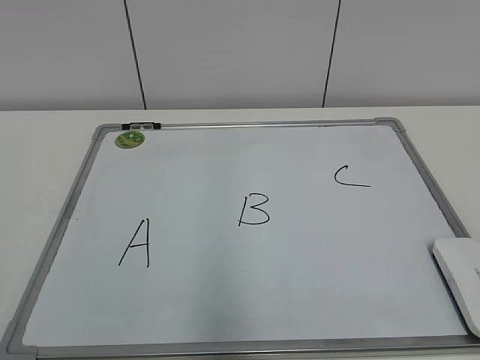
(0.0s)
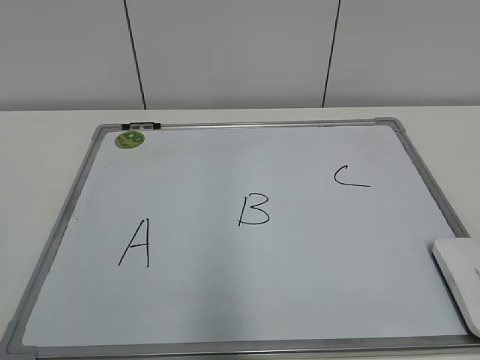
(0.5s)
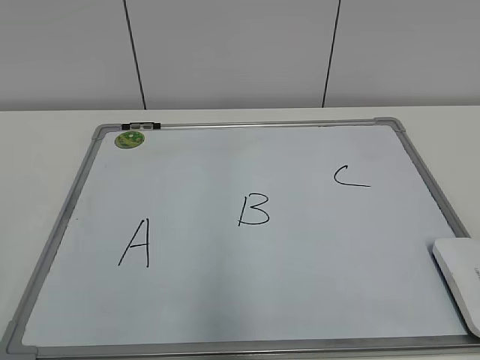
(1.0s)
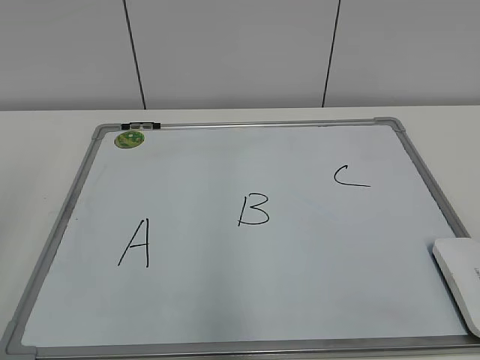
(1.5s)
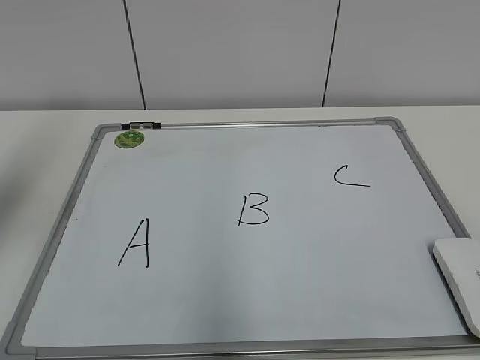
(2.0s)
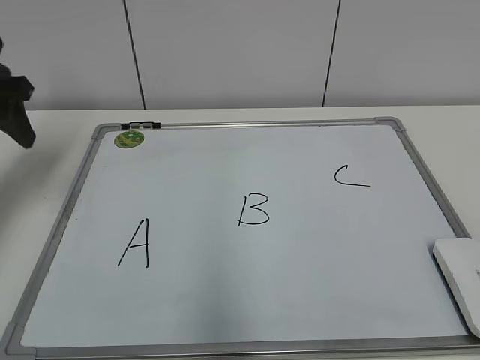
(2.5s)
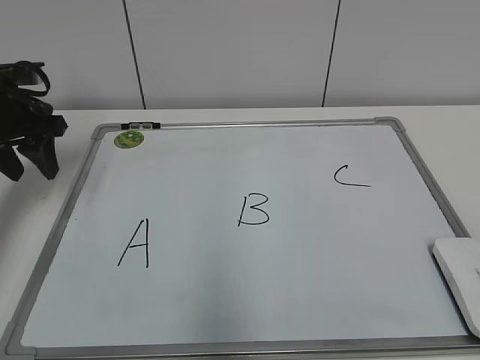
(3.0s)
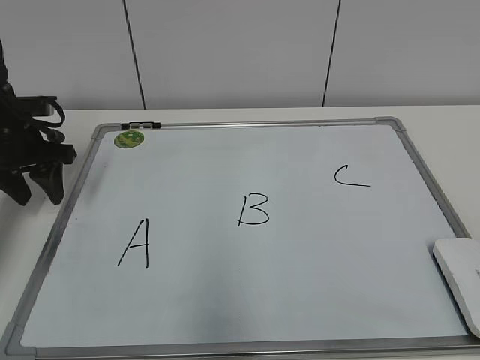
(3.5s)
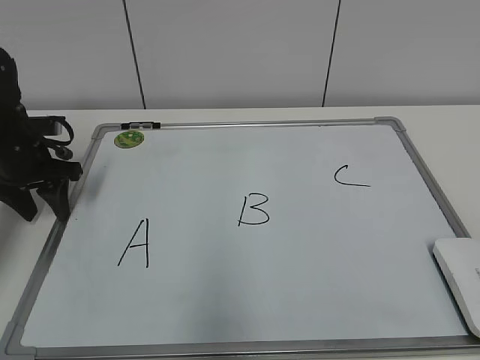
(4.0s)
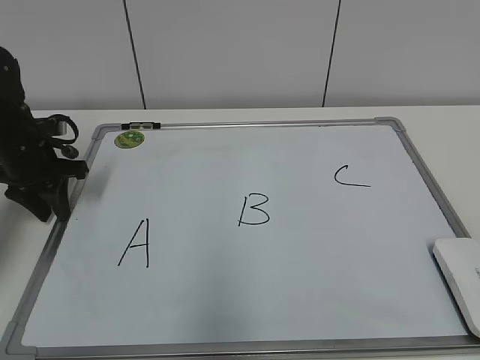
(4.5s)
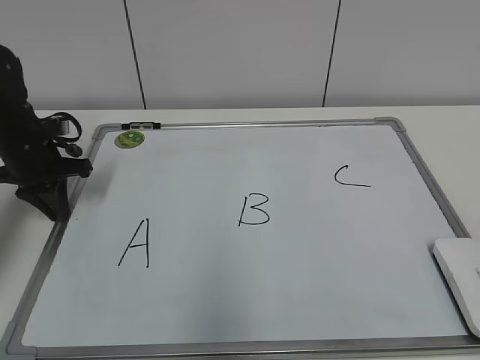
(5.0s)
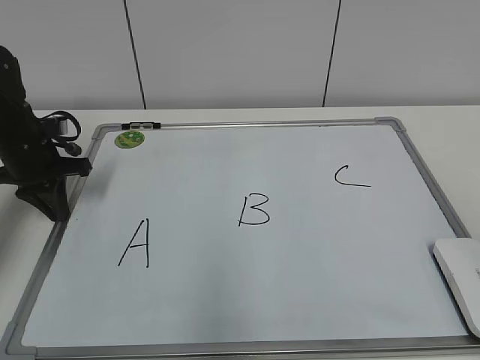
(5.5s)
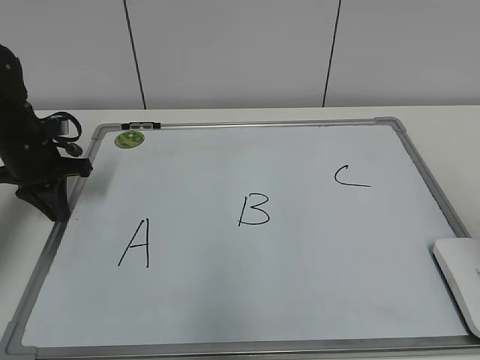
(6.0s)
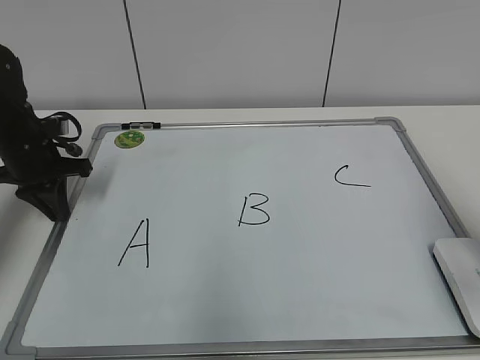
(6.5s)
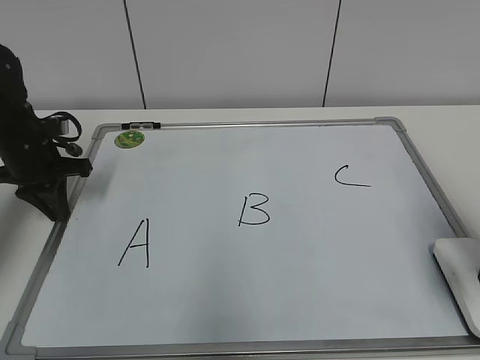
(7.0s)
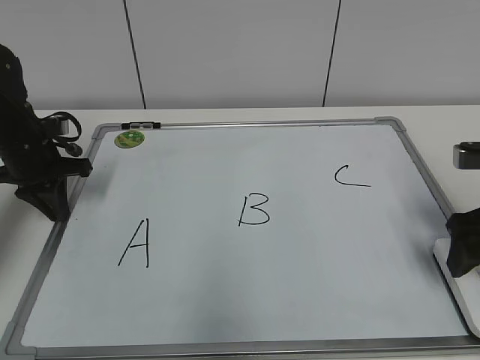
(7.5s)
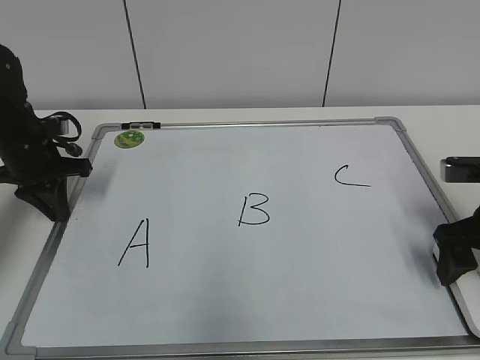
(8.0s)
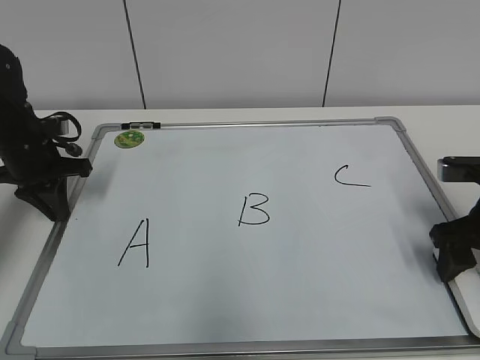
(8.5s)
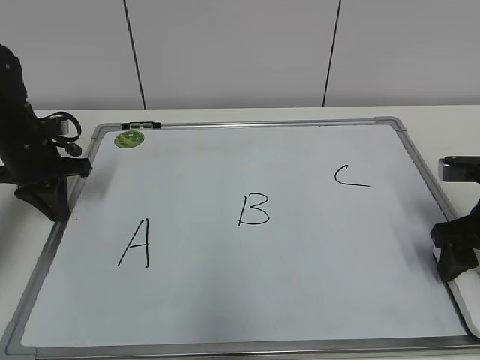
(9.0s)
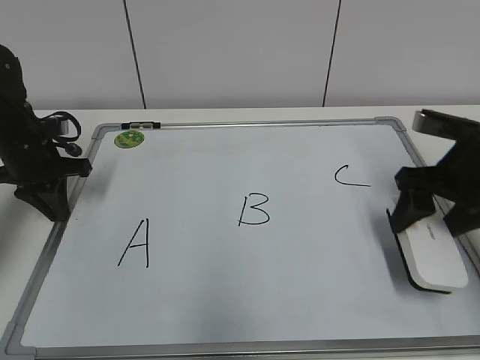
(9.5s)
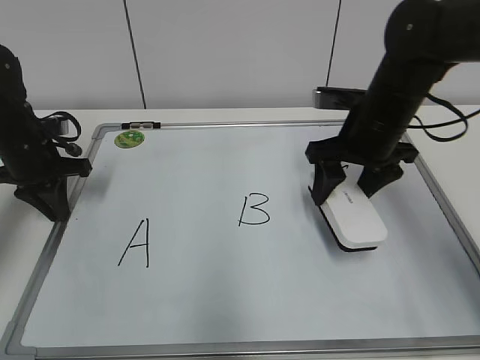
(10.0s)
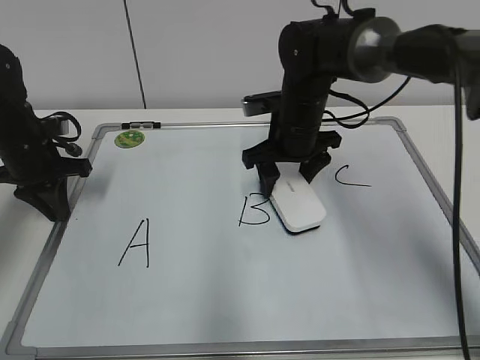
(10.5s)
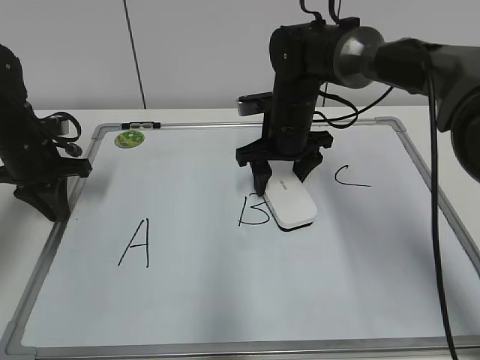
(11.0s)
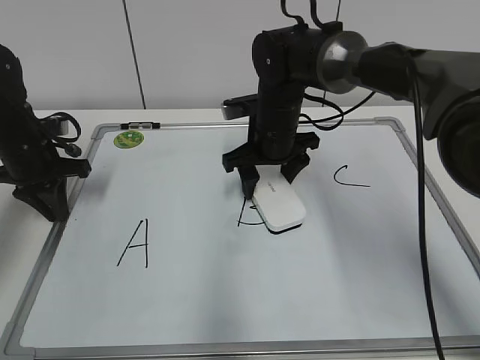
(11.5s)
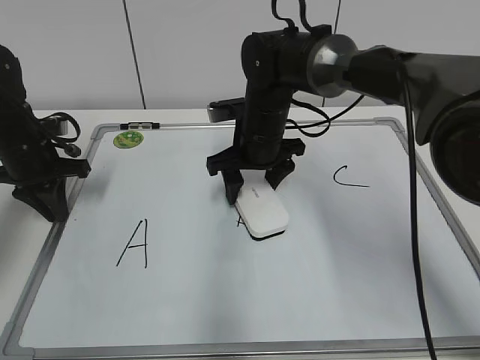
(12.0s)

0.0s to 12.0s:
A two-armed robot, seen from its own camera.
Task of the whole recording: pick up the eraser on the blackboard and erase the letter "B".
Step, 0.0s to 5.0s: Hold the drawing board steady with your left hand.
Step, 5.5s to 8.5s: Grab the eraser with your right hand.
2.0s to 4.0s: The left gripper travels downward and forward by roughly 25 cm.
4.0s to 6.0s: The left gripper closes up.
6.0s to 8.0s: The right gripper heads forward and downward, covering approximately 25 cm, and opens.
8.0s to 10.0s: The right gripper travels to the left and forward by approximately 15 cm, and closes its fingers.
10.0s to 12.0s: The right gripper heads to the left, covering about 15 cm.

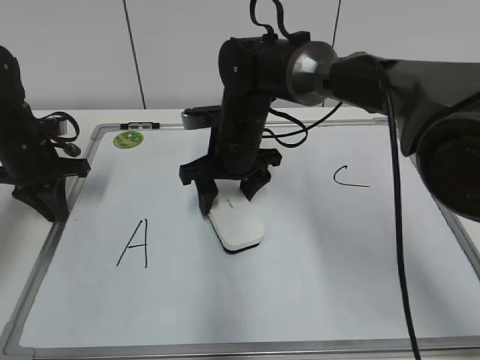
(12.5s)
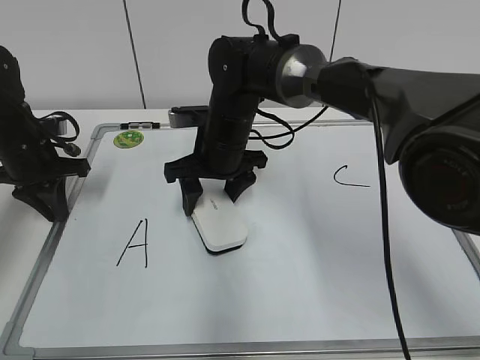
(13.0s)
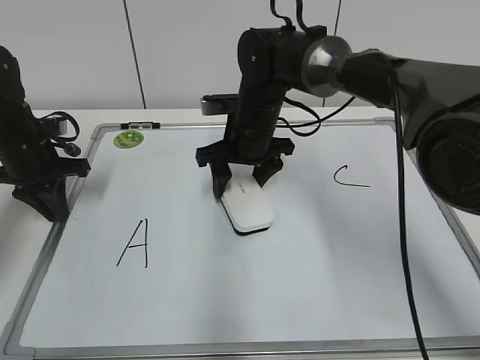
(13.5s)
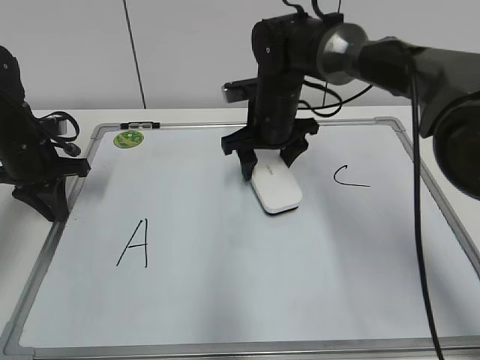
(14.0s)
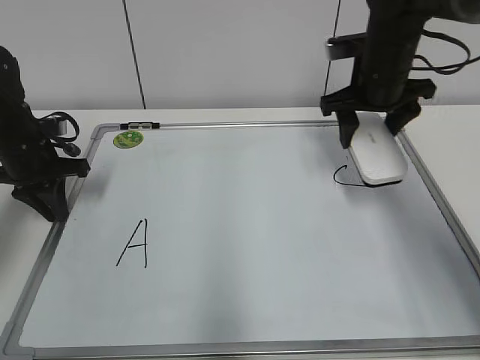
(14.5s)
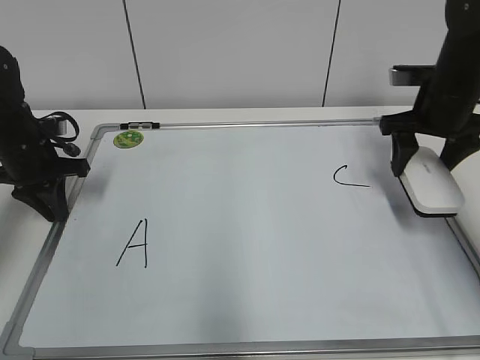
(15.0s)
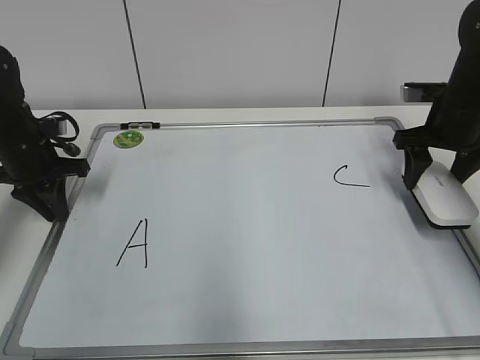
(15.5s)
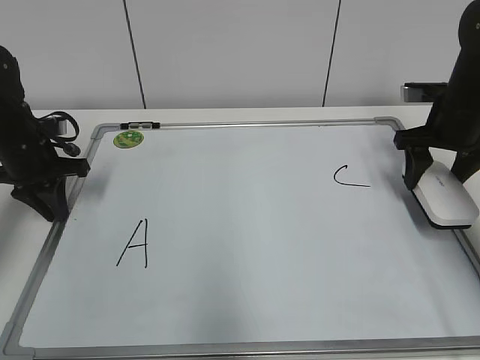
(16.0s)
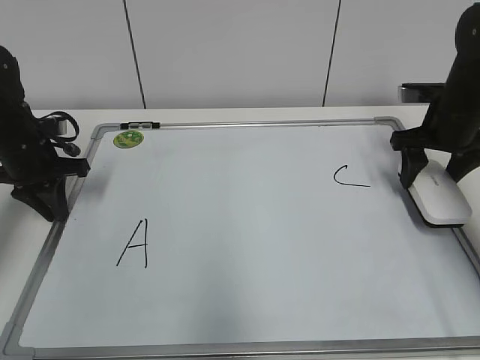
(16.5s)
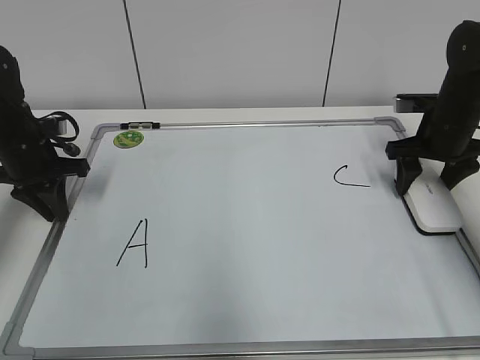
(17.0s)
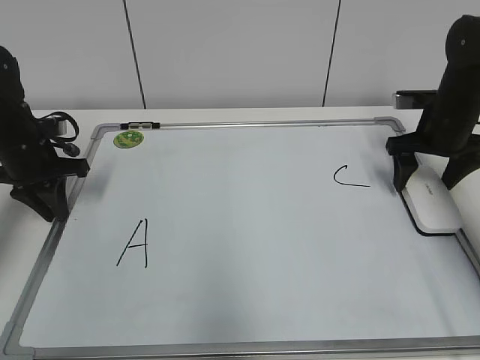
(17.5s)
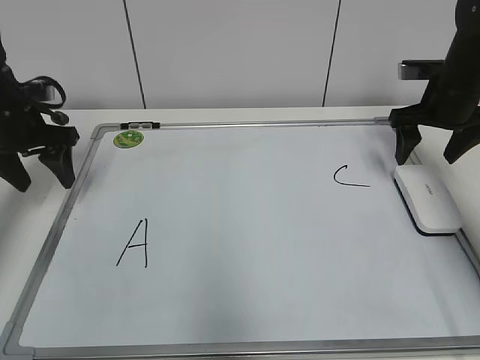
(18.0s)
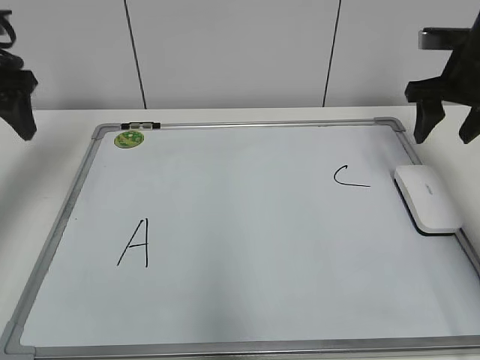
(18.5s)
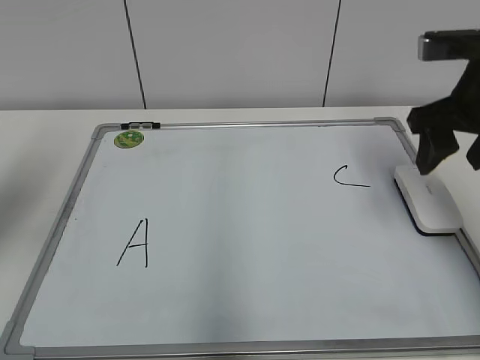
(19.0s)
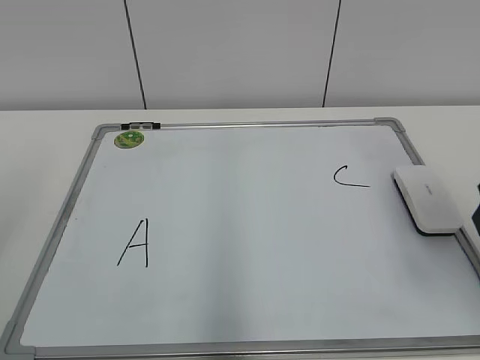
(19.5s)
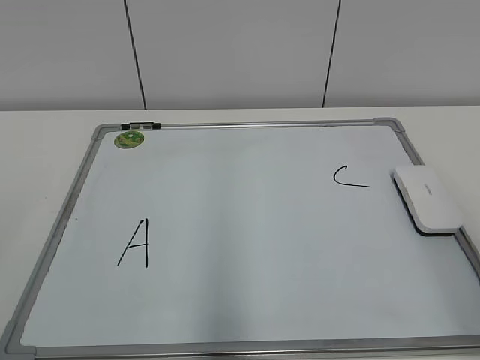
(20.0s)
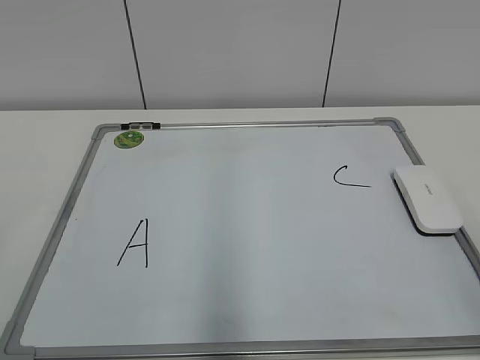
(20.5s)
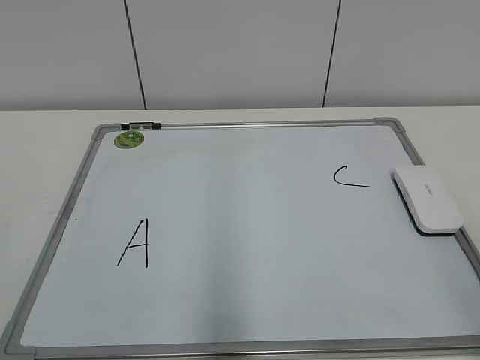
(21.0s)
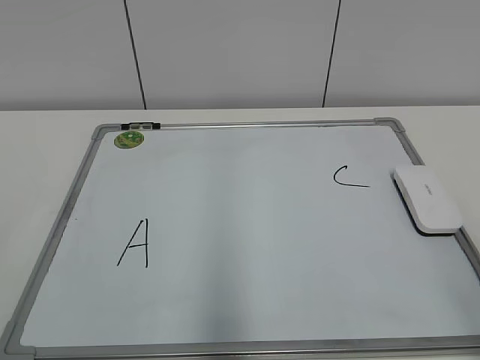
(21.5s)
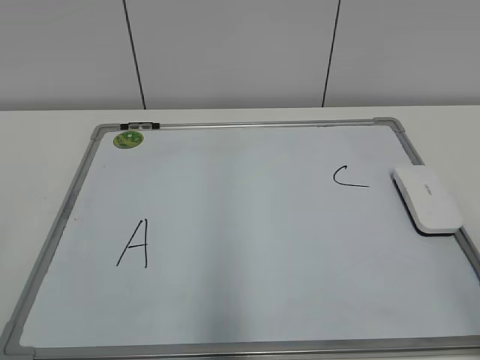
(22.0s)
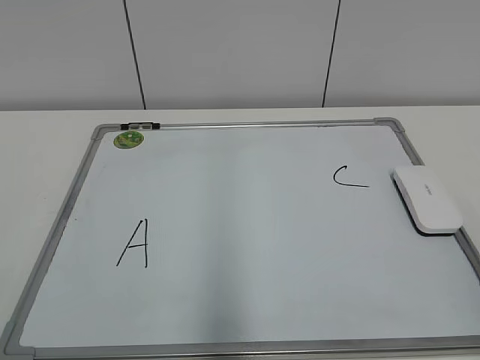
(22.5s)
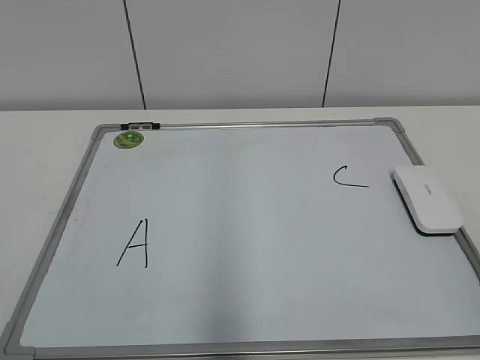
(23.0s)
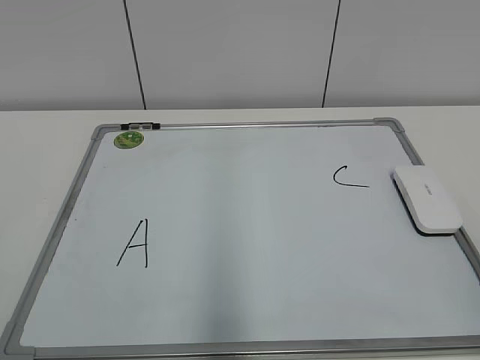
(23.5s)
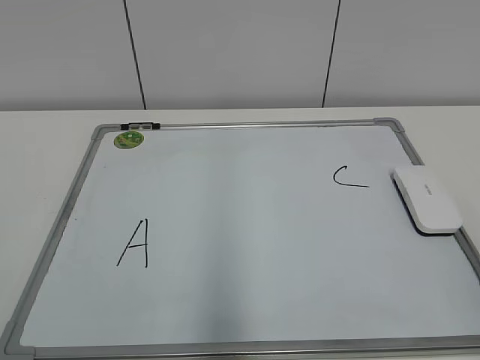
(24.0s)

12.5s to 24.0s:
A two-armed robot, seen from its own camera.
Task of the whole recording: pick up the eraser on the blackboard and erase the letter "B".
Step, 14.0s to 17.0s: Put down the eraser with your right hand.
12.5s to 14.5s: The right gripper shifts approximately 20 cm to the right and upward.
14.5s to 16.5s: The right gripper is displaced to the right and downward by approximately 15 cm.
16.5s to 18.5s: The left gripper heads upward, covering roughly 15 cm, and opens up; the right gripper goes about 5 cm upward, and opens, then closes once more.
18.5s to 20.0s: Both grippers move backward, approximately 35 cm.

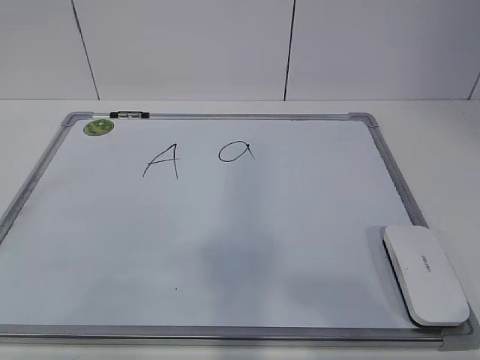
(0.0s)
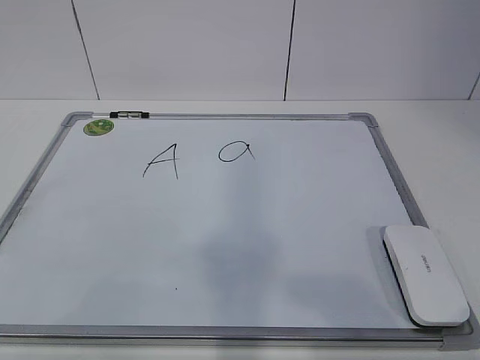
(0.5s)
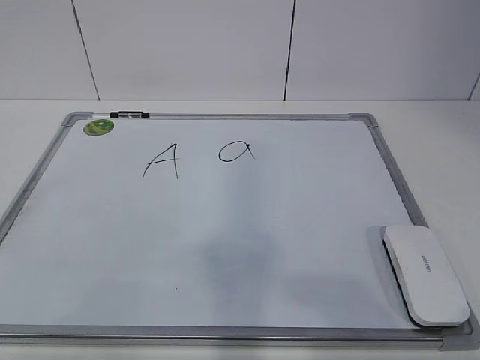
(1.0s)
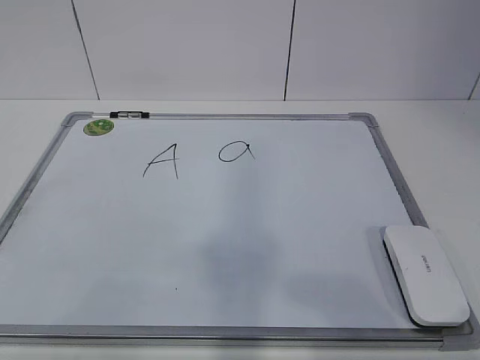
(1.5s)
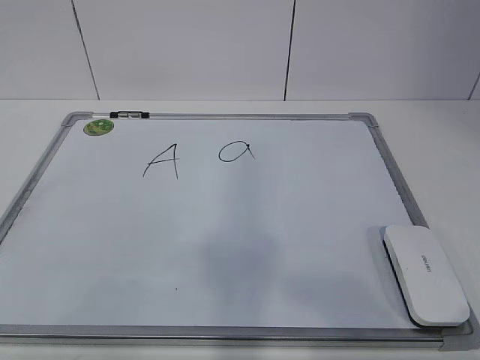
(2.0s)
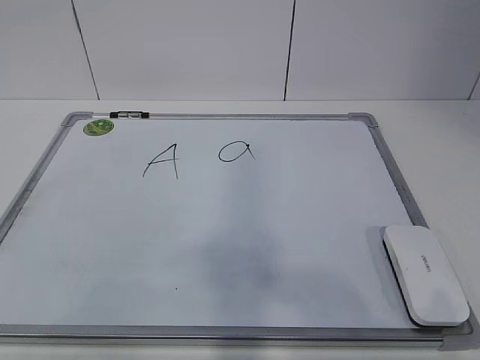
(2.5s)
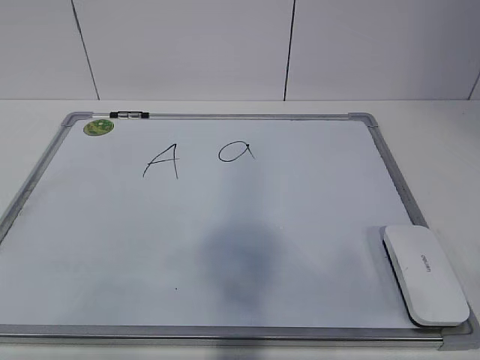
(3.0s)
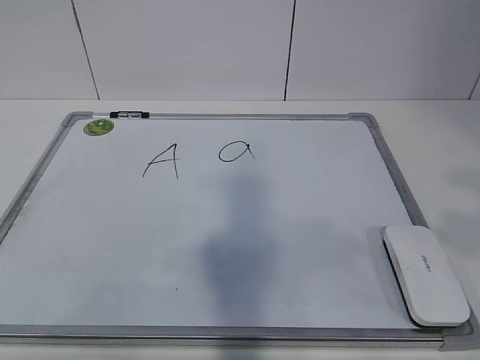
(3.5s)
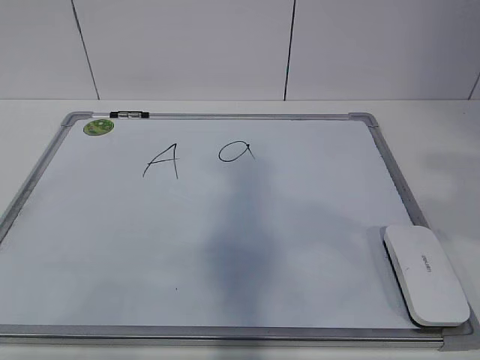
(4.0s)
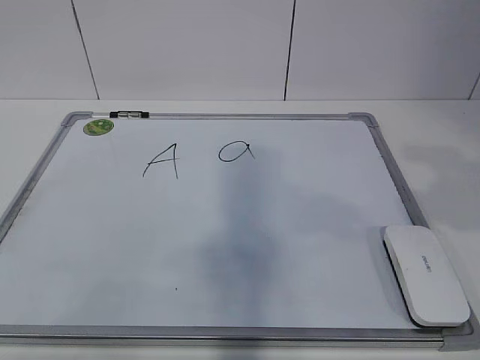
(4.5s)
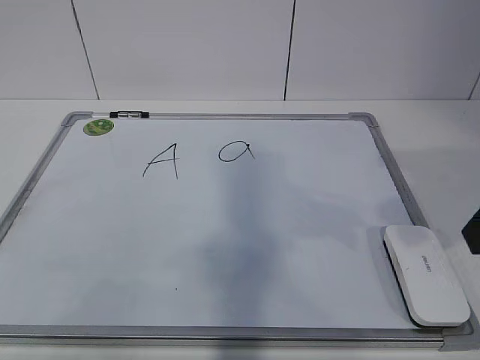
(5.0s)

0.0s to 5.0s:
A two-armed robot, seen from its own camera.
Task of the whole recording: pick up the eraser on the blackboard and erase the letter "a".
2.5s to 5.0s: The right gripper moves forward, some 20 cm.
